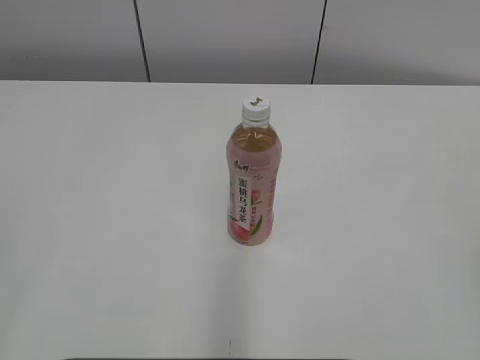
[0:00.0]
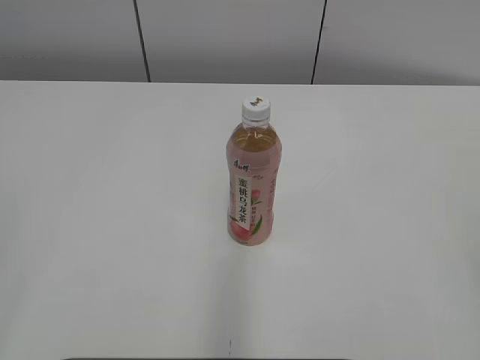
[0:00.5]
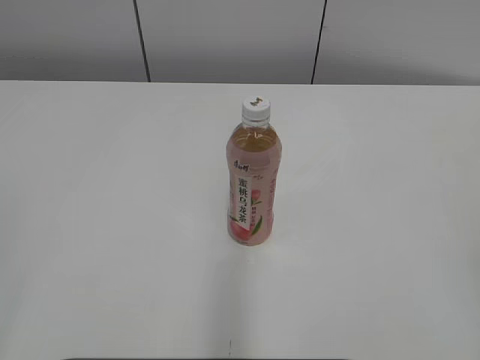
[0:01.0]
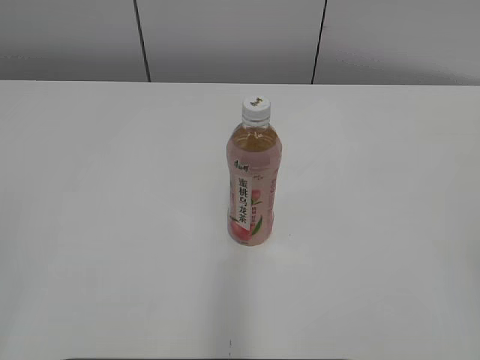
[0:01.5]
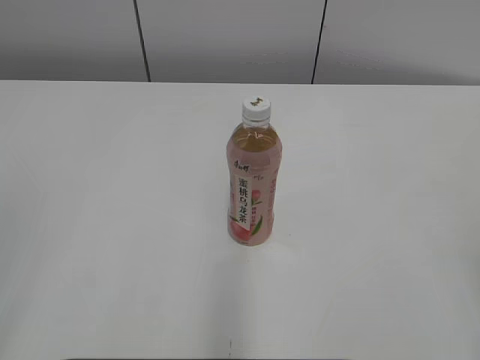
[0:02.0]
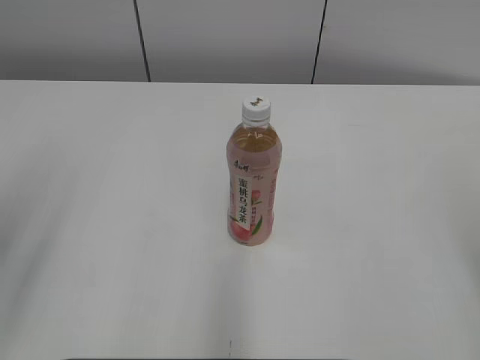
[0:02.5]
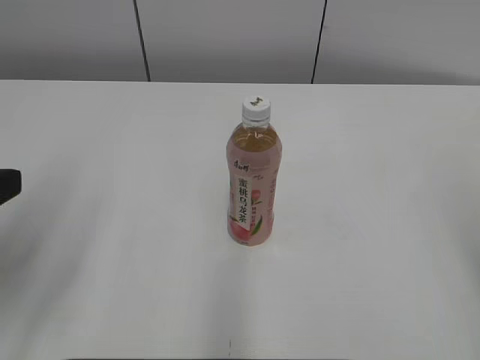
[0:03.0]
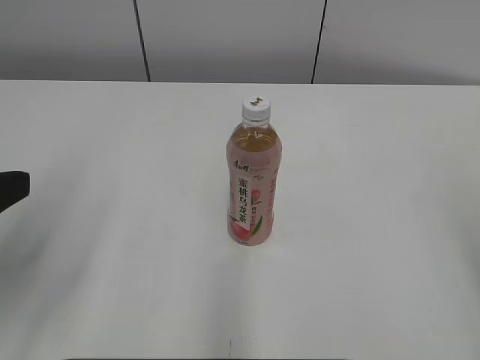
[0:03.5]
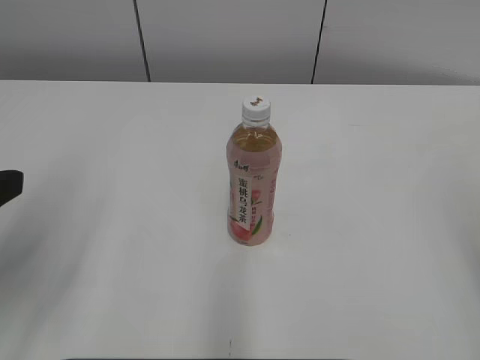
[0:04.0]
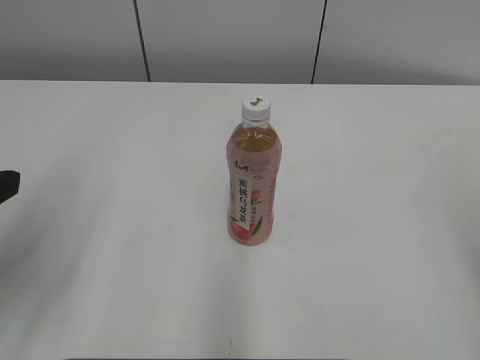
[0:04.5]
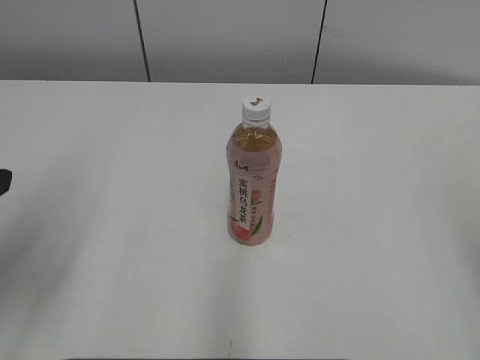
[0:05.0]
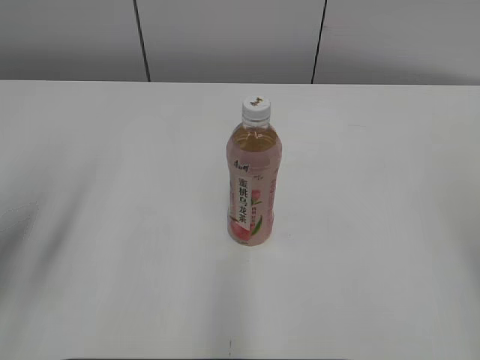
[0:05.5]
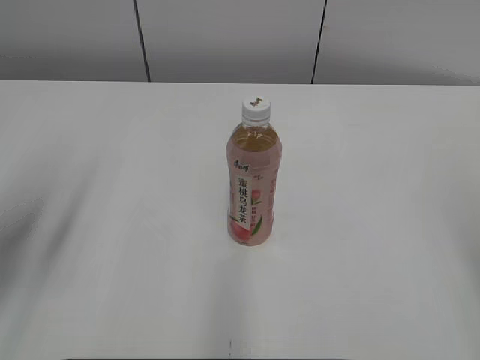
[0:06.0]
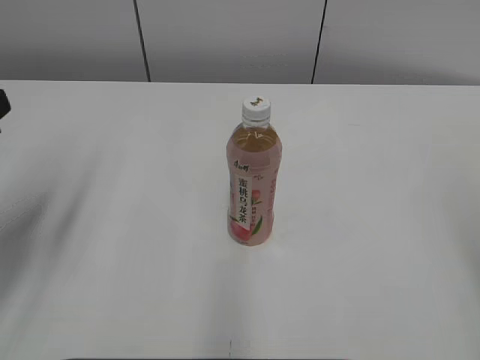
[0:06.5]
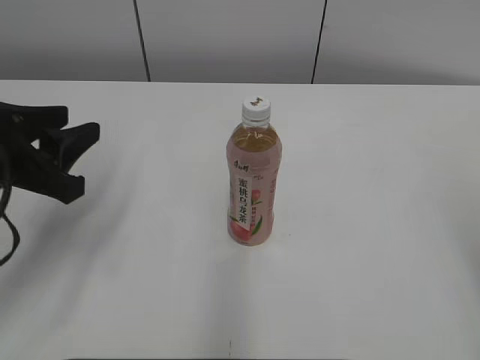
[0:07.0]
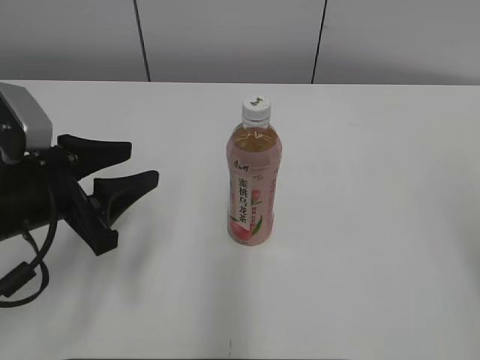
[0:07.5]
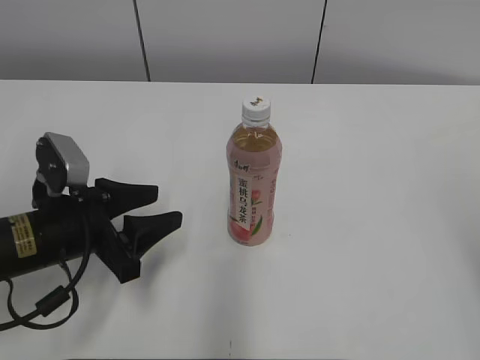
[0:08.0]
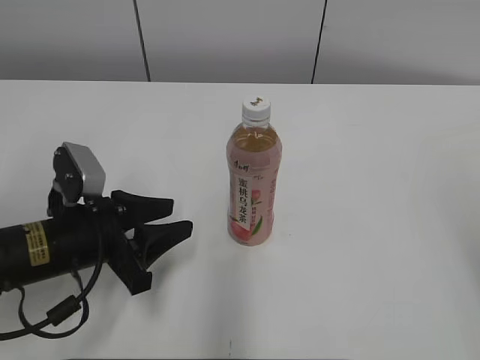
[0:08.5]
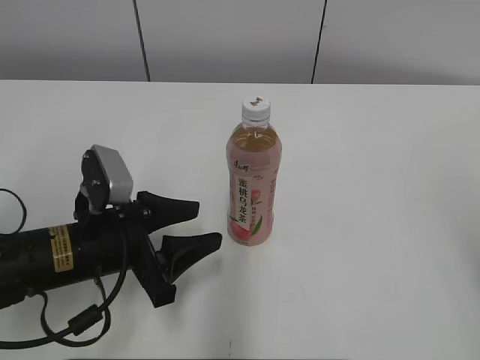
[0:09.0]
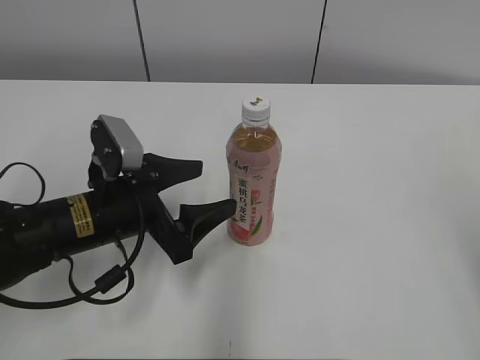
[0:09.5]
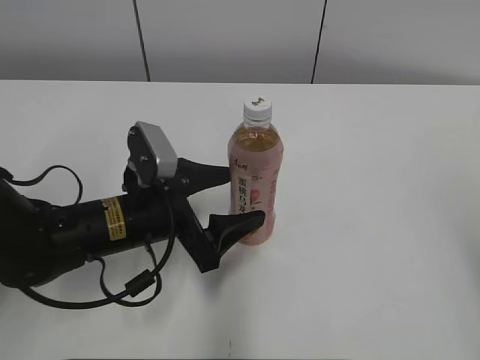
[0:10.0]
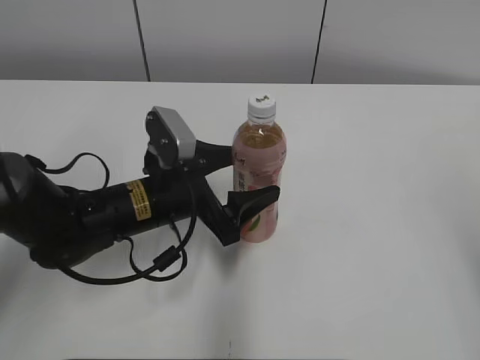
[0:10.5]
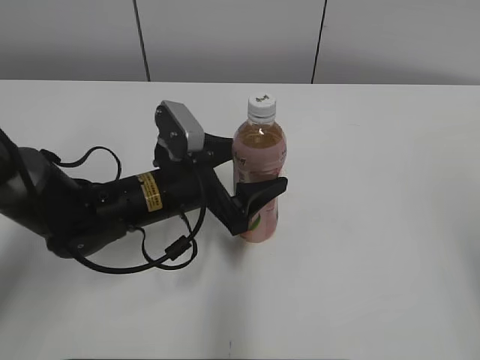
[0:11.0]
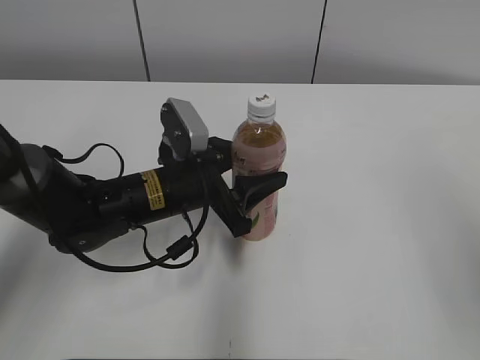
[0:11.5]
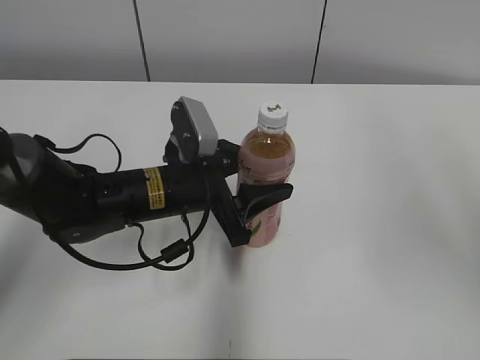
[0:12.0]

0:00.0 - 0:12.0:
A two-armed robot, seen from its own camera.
0:02.0 - 0:04.0: The left gripper goes approximately 15 cm forward and downward, and opens up.
0:06.0 - 0:08.0: The left gripper travels downward, to the right and forward by about 20 cm.
0:08.0 - 0:10.0: The left gripper is displaced to the right by roughly 10 cm, and opens up.
0:10.0 - 0:12.0: The left gripper ends up approximately 5 cm from where it was, and closes up, while the right gripper shifts about 15 cm forward and upward.

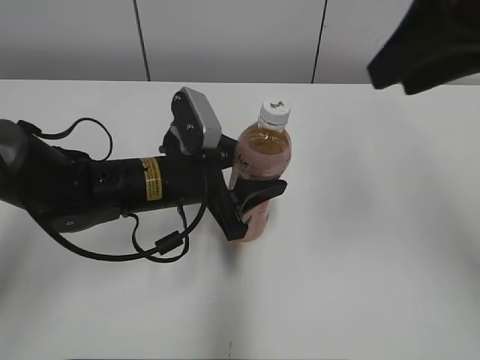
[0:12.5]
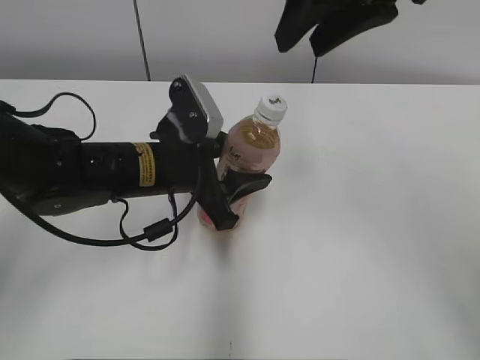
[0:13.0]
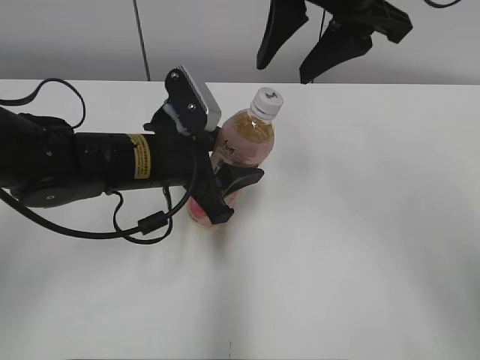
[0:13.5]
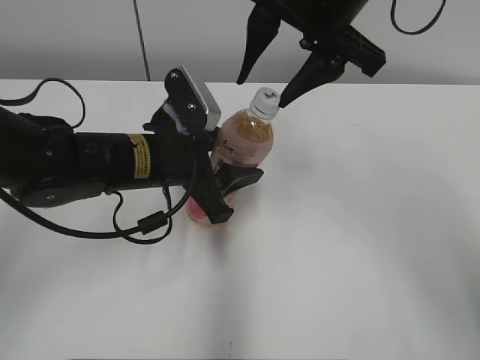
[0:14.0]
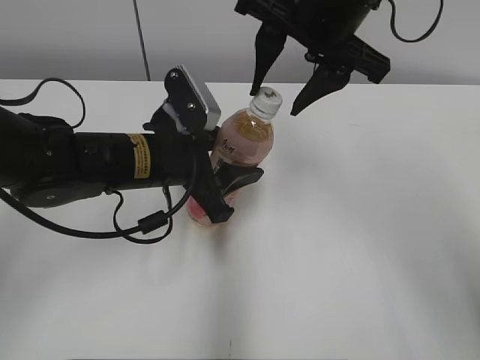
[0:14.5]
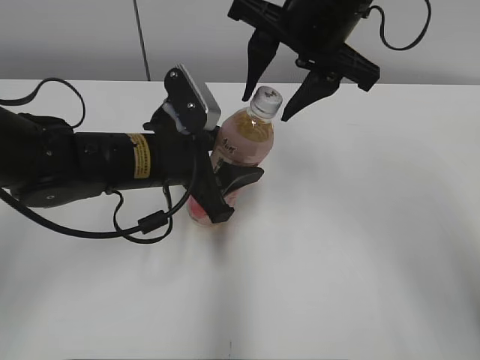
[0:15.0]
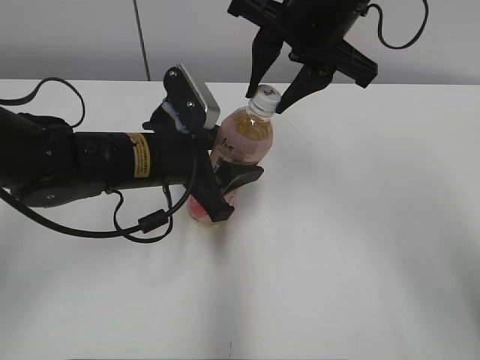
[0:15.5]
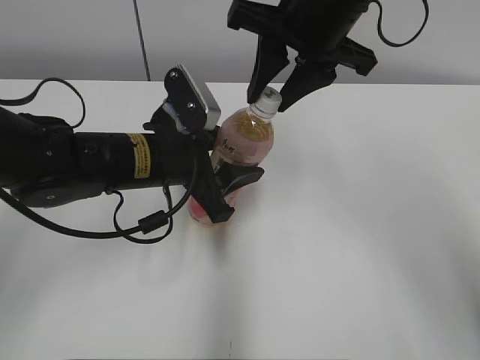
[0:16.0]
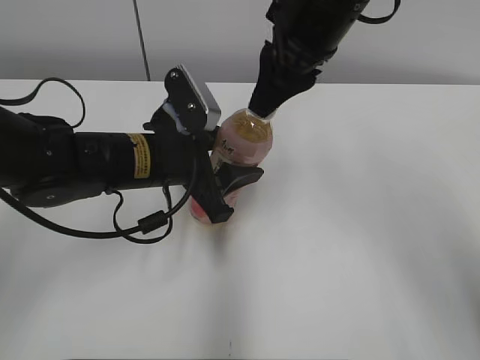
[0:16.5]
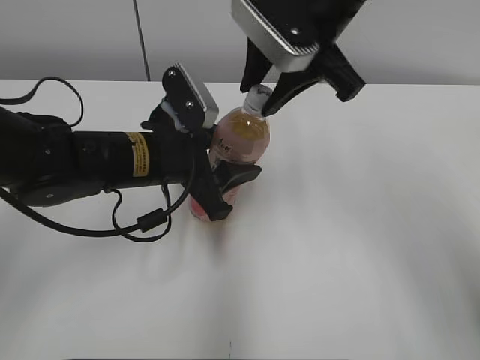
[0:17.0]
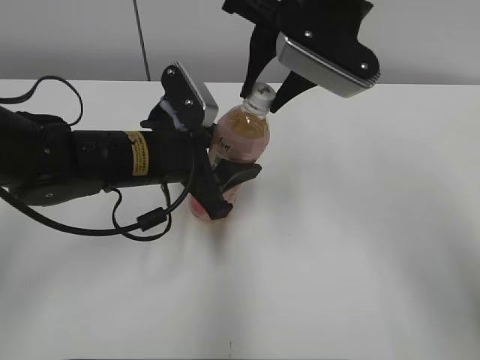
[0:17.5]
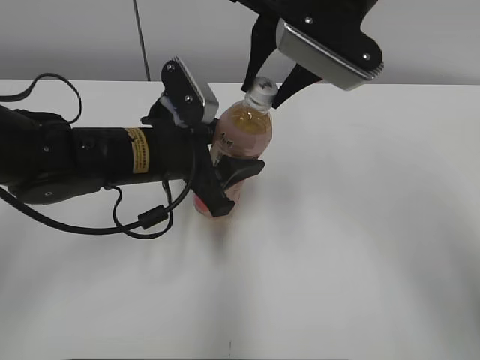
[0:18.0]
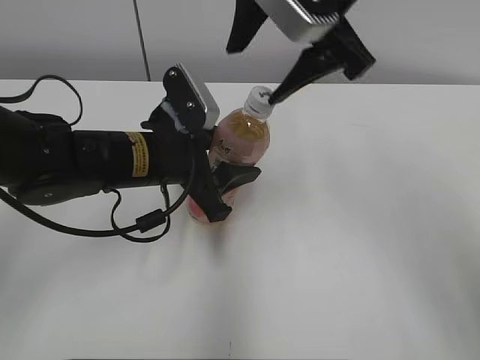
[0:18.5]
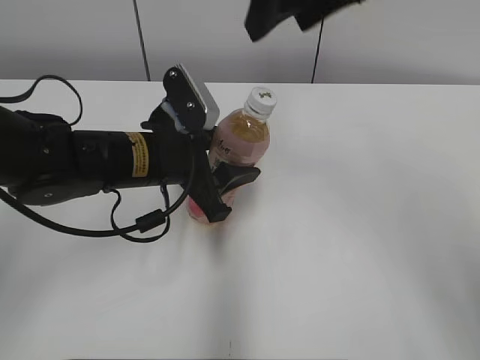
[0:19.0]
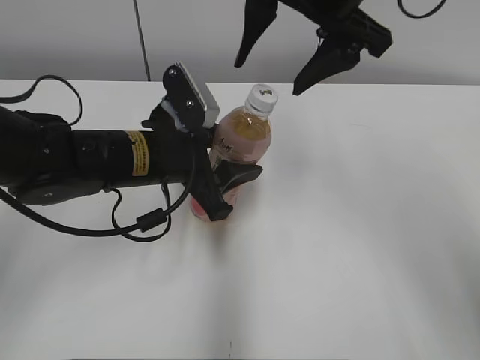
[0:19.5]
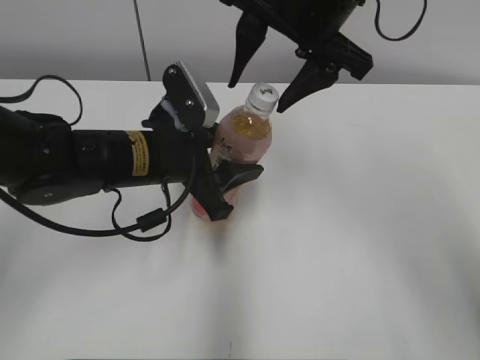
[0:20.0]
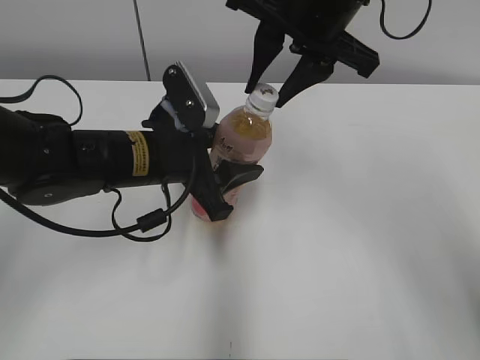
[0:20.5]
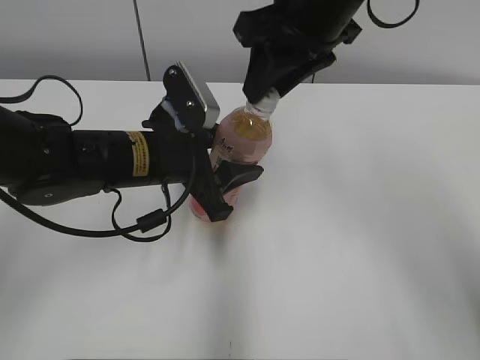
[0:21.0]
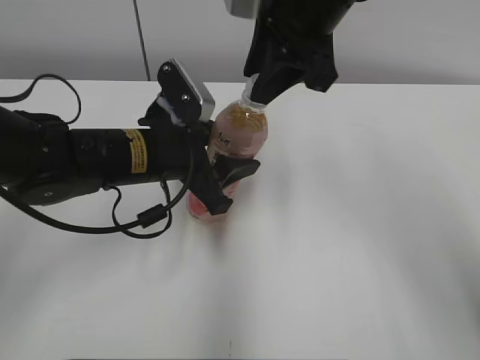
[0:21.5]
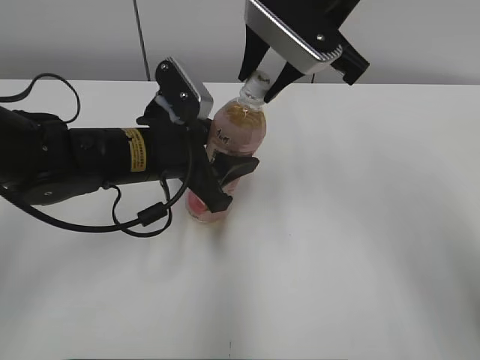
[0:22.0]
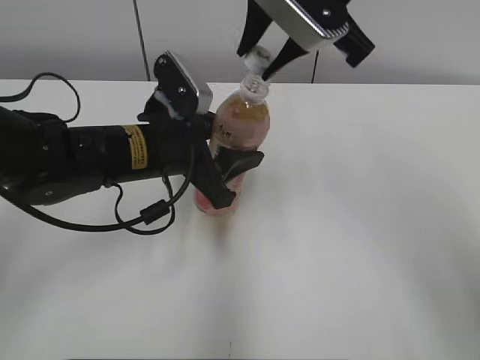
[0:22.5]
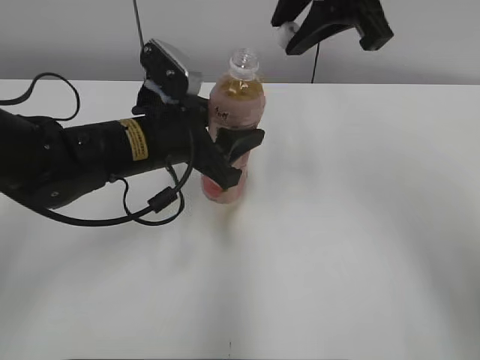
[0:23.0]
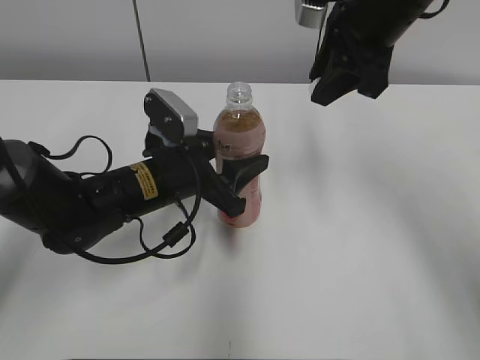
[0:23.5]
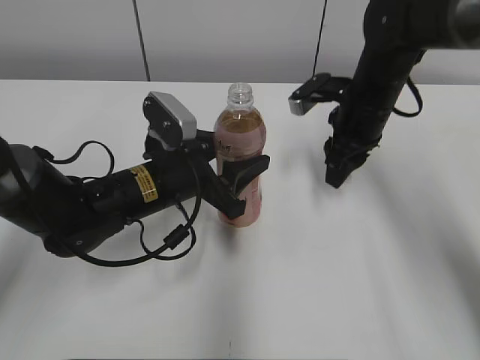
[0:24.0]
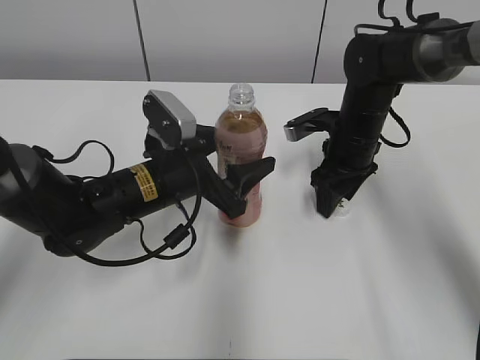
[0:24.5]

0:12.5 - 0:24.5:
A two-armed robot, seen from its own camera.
Step, 0:12.5 - 0:15.0: Lift the Peach Oolong Tea with the left hand.
Step, 0:22.5 - 0:24.0: Place the bottle cap on the right.
0:12.5 - 0:14.5: The right gripper travels to the left, forward and downward by approximately 15 cm.
0:14.5 - 0:16.5: The right gripper closes up.
0:16.5 - 0:18.5: The right gripper opens its fingers.
0:18.5 - 0:20.5: The right gripper closes.
0:22.5 - 0:24.5: The left gripper travels downward by approximately 5 cm. Meanwhile the right gripper heads downward, covering roughly 25 cm, and opens.

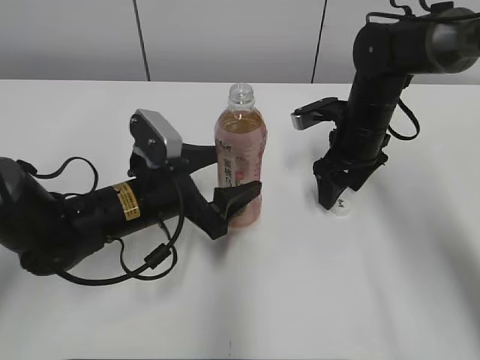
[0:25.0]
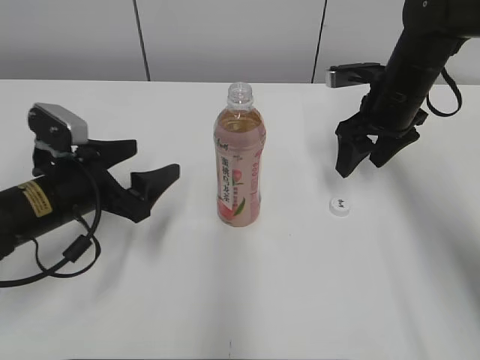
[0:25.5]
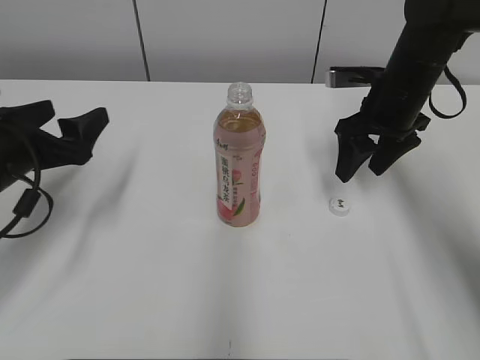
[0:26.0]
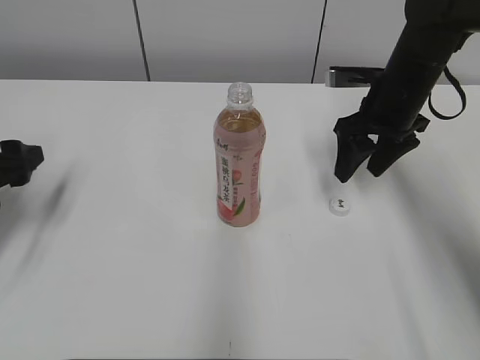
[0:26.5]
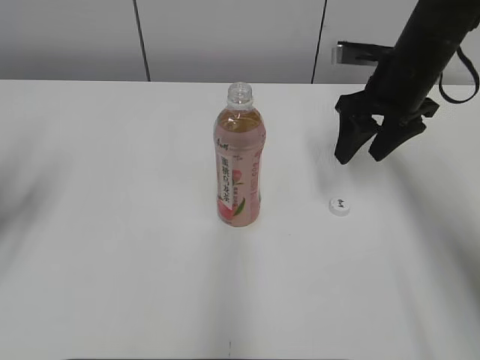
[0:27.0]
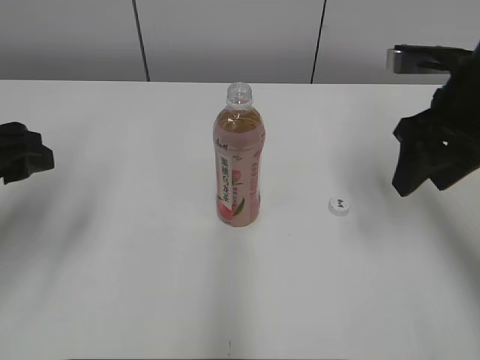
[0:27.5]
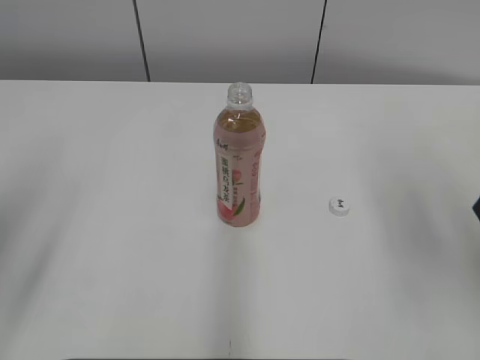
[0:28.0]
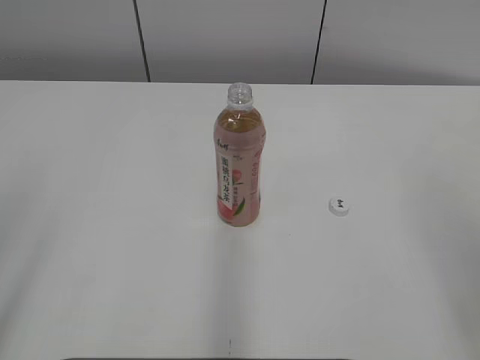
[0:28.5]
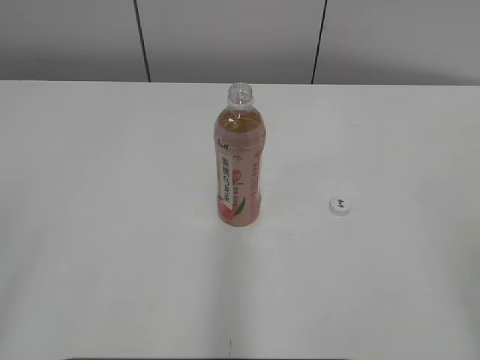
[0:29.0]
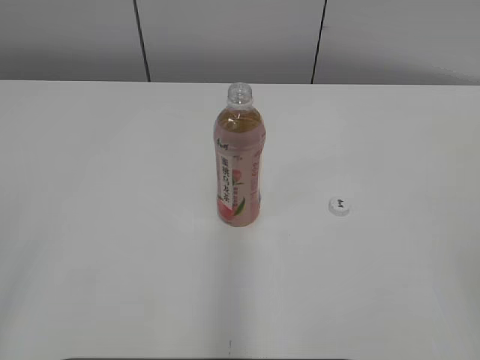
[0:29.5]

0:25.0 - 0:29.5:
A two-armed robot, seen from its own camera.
0:25.0 - 0:27.0: The left gripper goes some 25 cm to the left and upward. Meanwhile the right gripper moves upward, about 10 cm.
0:27.0 - 0:29.5: The right gripper goes about 40 cm backward, while the left gripper goes roughly 25 cm backward.
